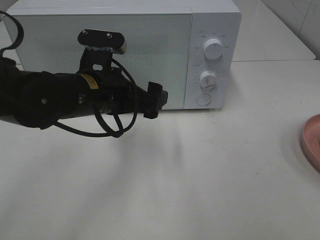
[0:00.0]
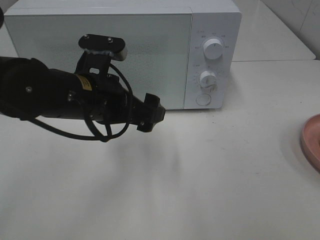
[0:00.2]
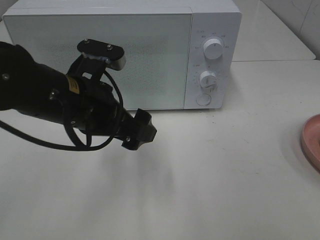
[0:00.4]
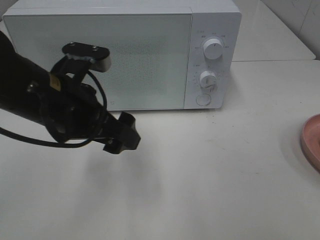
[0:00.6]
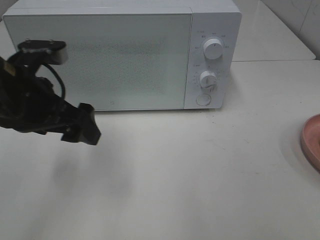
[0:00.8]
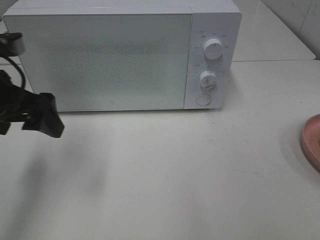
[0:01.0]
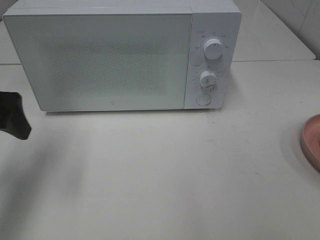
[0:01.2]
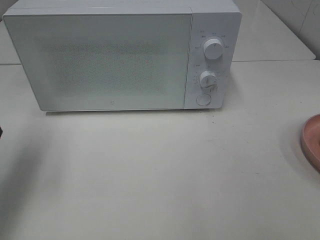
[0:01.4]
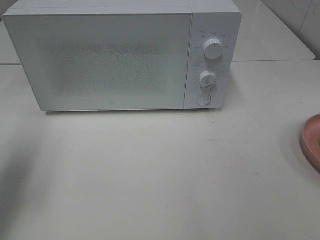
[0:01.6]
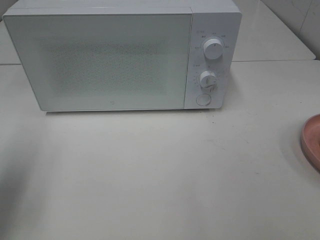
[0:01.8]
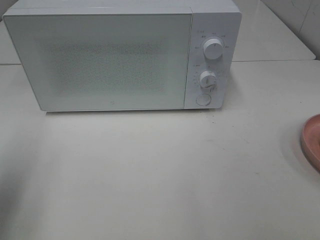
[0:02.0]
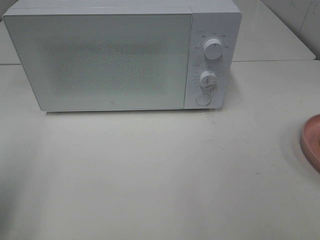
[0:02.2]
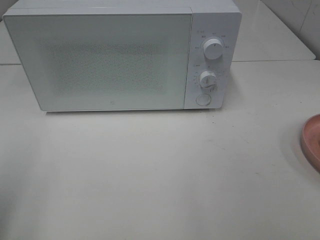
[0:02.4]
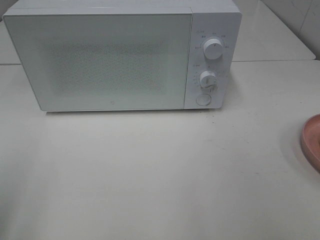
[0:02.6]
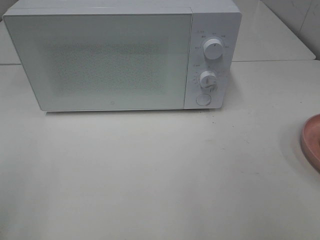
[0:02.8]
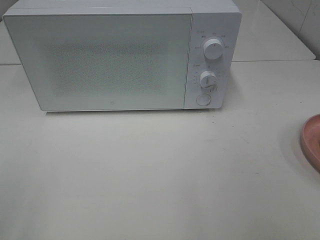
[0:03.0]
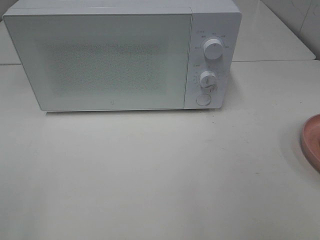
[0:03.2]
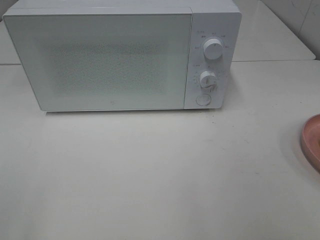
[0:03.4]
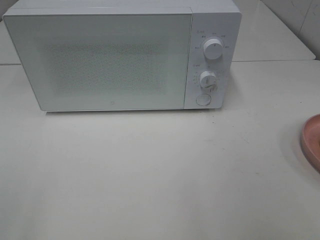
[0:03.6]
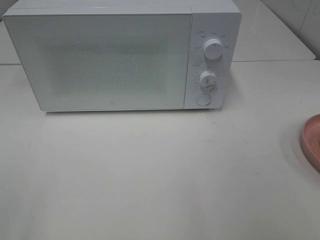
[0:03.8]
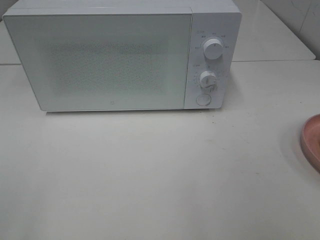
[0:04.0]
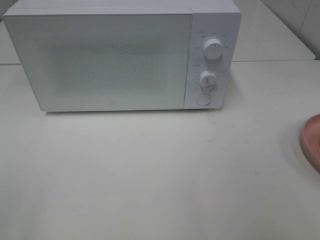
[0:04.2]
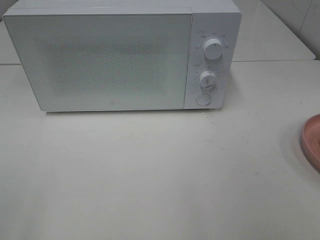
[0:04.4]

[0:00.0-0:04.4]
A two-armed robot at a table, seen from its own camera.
Task of the whole recording: Heat Sandwich.
0:00.0 to 0:01.4: The left gripper goes roughly 20 cm to the left.
0:01.4 to 0:03.0: The left gripper goes approximately 20 cm backward.

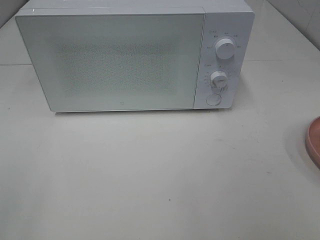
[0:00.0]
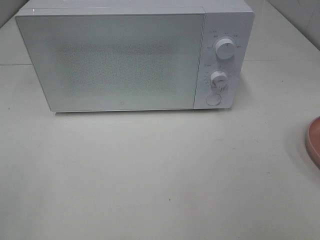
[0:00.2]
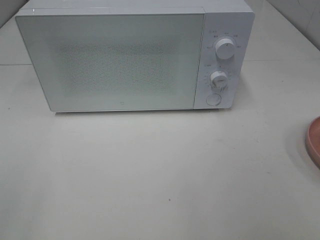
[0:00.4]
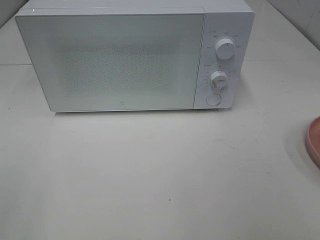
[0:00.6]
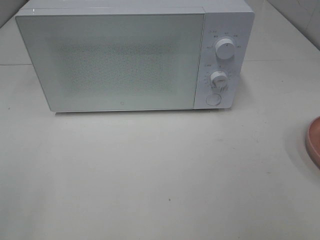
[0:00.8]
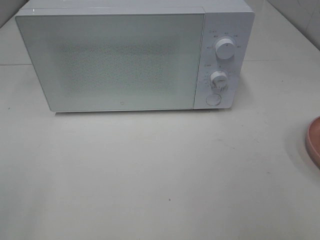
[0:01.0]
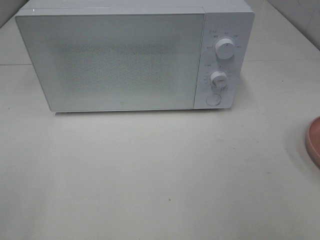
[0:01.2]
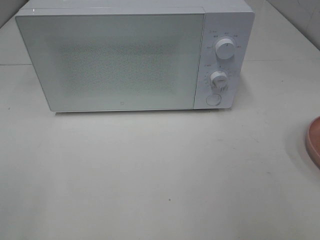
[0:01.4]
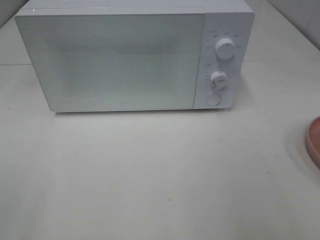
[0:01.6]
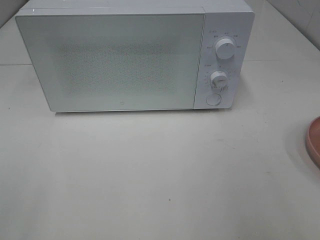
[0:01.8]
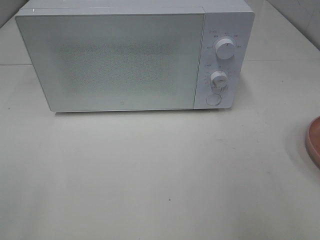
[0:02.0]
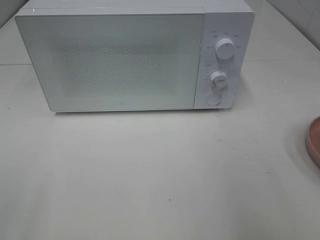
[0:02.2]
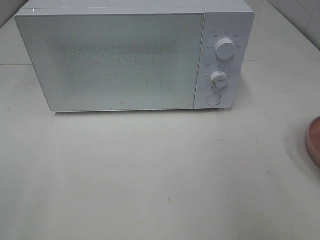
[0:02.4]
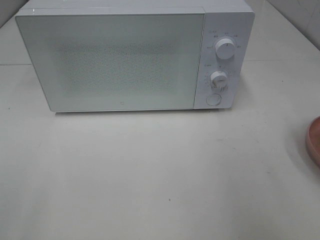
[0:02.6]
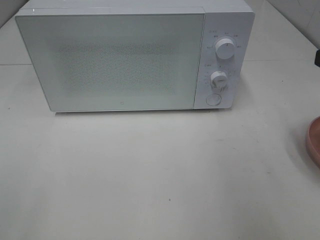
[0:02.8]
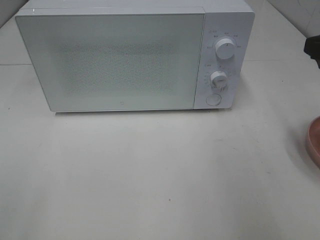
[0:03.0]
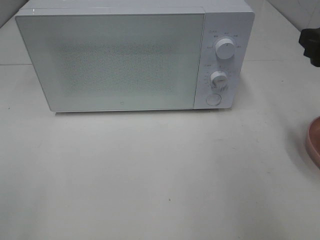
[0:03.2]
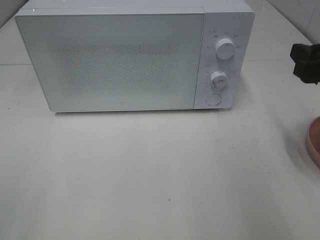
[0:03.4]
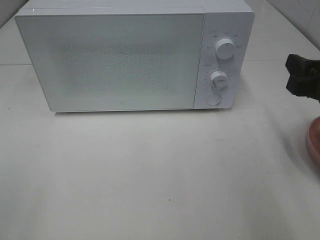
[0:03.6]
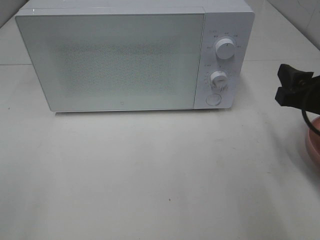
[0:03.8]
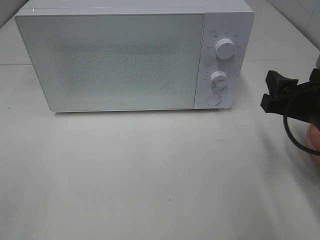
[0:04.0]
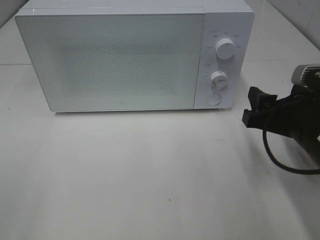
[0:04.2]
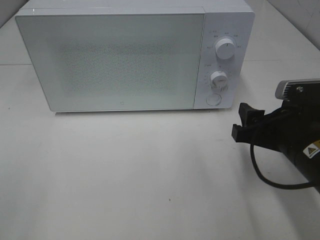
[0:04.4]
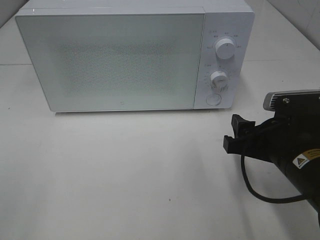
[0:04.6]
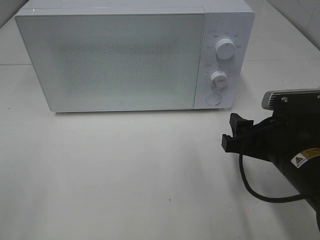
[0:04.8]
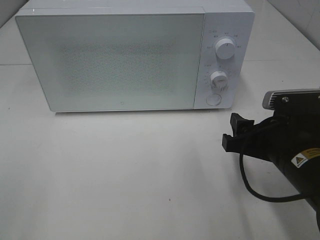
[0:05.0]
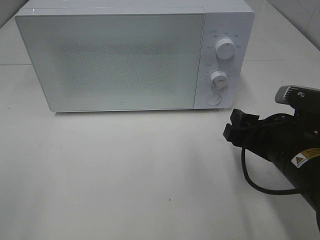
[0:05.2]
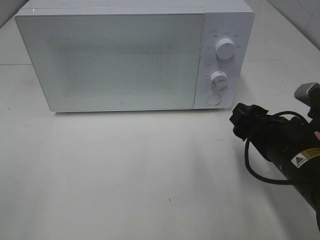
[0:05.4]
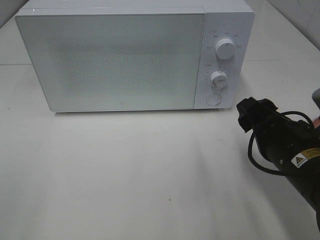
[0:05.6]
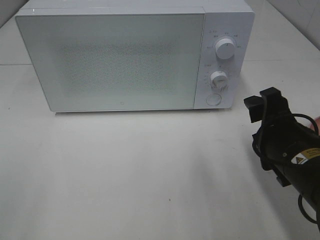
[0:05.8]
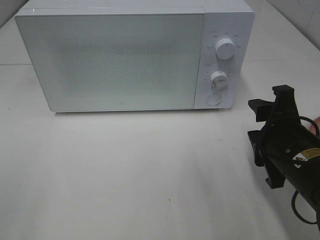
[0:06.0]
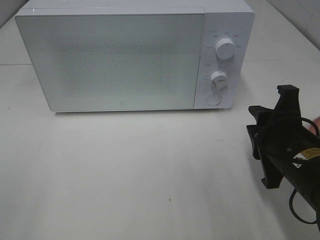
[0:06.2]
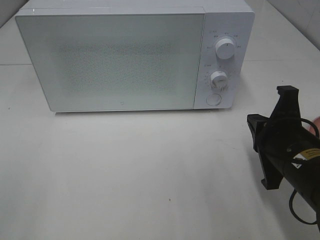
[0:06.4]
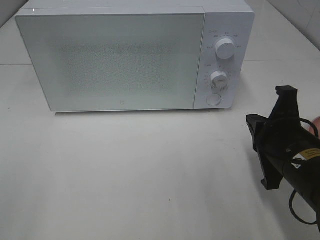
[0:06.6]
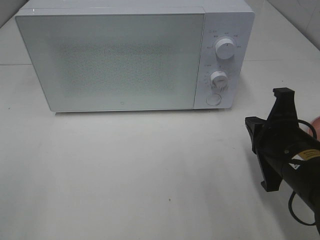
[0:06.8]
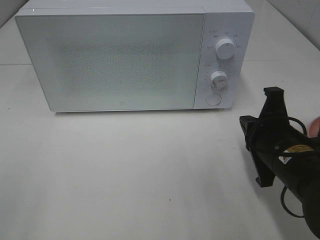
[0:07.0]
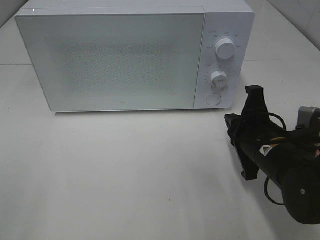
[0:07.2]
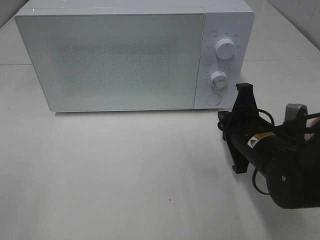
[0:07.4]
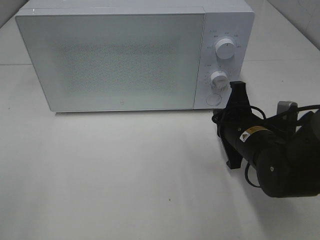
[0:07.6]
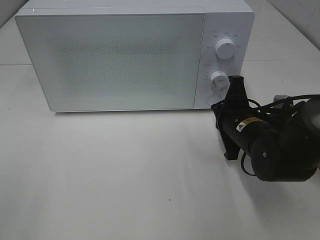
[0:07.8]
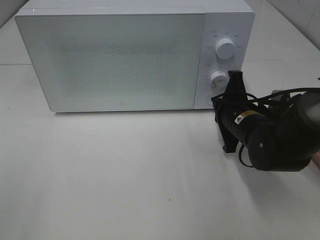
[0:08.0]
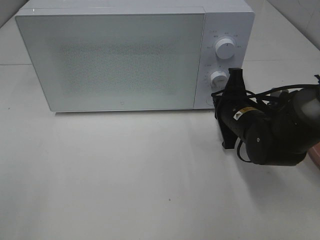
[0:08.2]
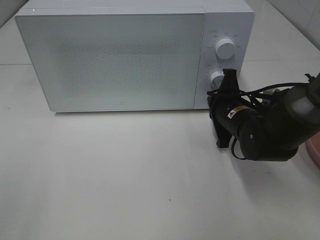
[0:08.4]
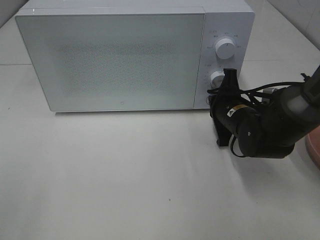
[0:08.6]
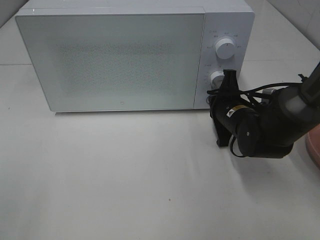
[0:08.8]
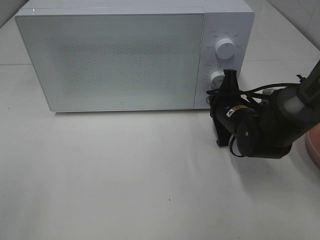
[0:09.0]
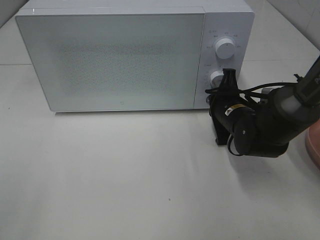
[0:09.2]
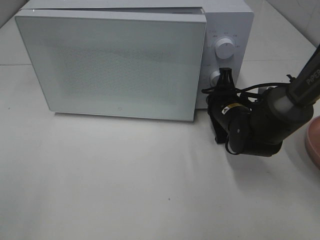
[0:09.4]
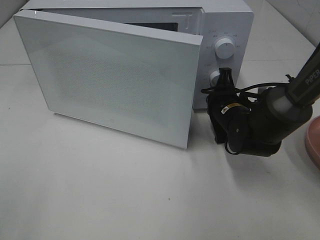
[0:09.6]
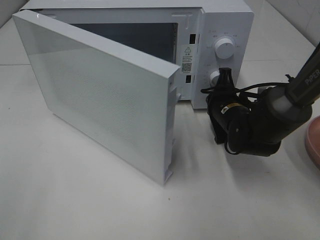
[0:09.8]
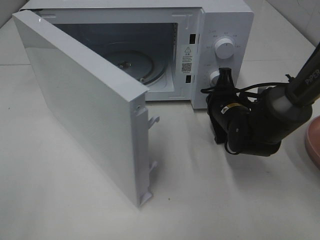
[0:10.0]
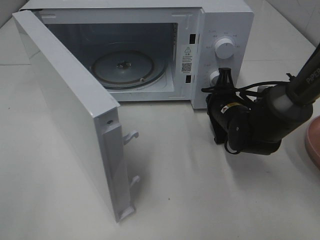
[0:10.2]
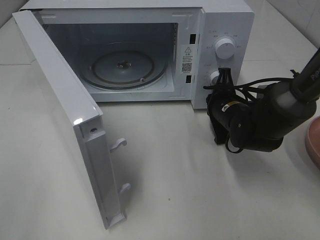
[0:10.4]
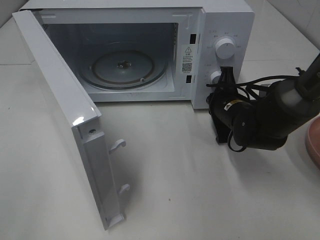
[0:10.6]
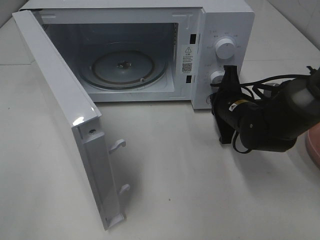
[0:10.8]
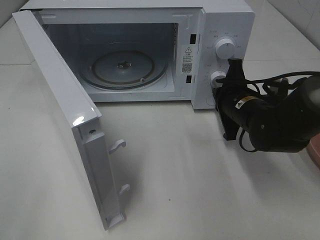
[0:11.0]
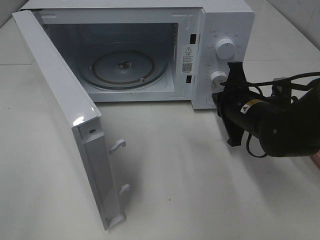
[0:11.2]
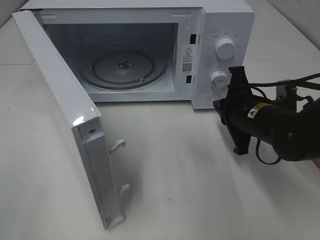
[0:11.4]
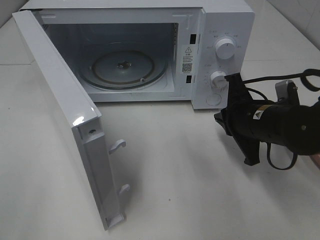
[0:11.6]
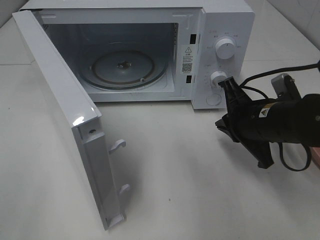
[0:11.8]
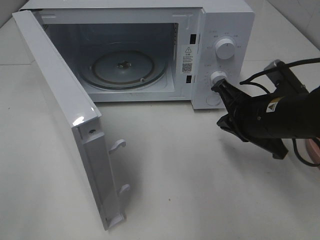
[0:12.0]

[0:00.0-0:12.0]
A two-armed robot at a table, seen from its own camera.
Task of the whole recording: Heat Sandwich.
Step, 0:00.0 to 0:11.2: Right hand: press the switch.
0:01.6 to 0:03.0: The right gripper heads forward, covering approximately 15 cm.
0:03.0 to 0:04.4: The right gripper shifts approximately 15 cm downward and to the left.
0:06.0 to 0:07.6: The right gripper heads forward, covering approximately 10 cm, and closes its fingers.
0:07.6 to 0:09.0: The right gripper is displaced forward by approximately 10 cm.
0:10.4 to 0:12.0: The right gripper moves backward and upward, some 15 cm.

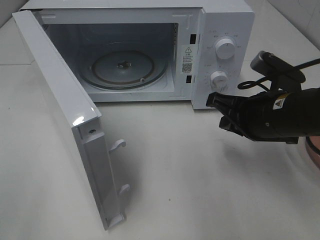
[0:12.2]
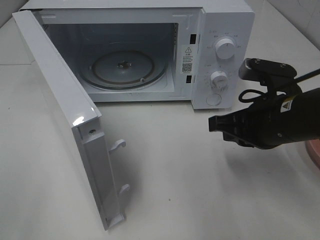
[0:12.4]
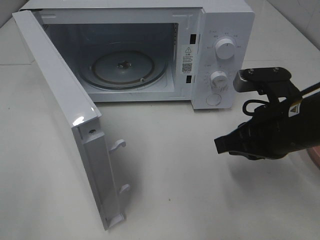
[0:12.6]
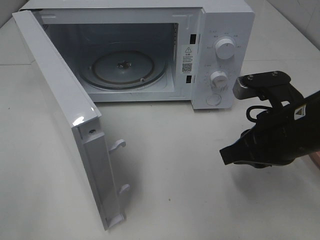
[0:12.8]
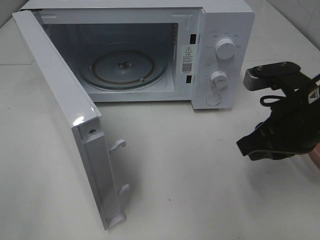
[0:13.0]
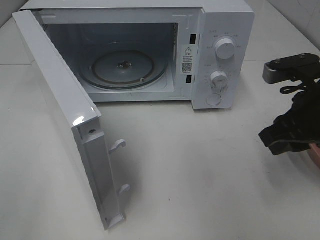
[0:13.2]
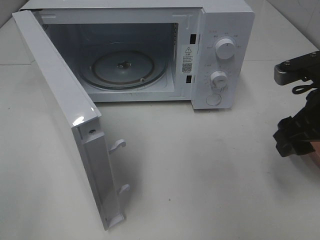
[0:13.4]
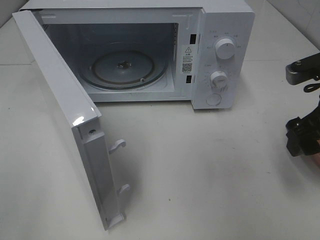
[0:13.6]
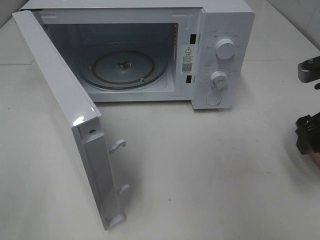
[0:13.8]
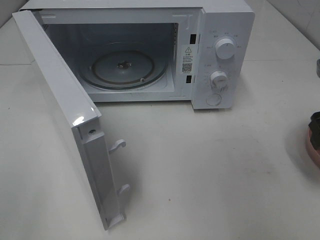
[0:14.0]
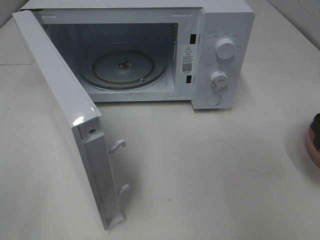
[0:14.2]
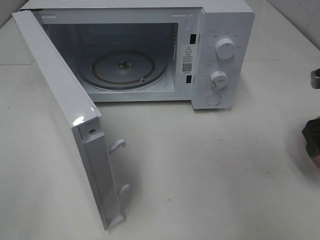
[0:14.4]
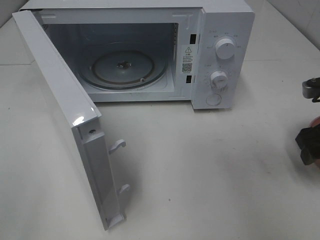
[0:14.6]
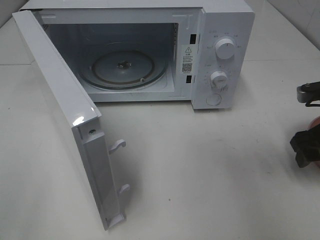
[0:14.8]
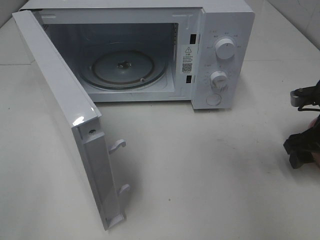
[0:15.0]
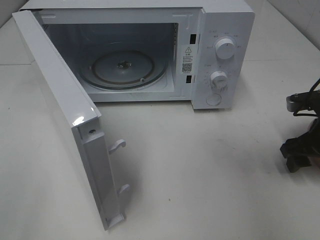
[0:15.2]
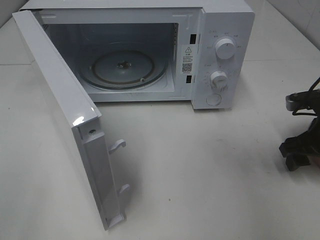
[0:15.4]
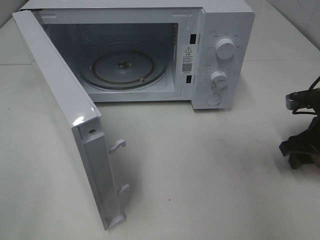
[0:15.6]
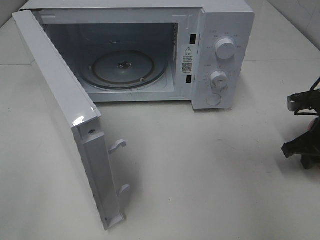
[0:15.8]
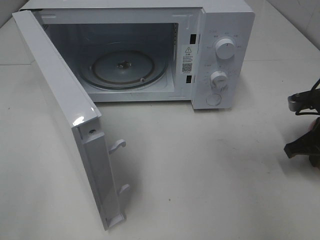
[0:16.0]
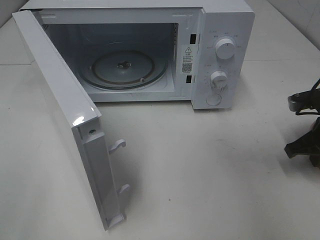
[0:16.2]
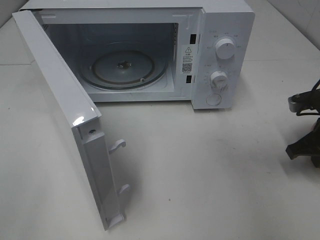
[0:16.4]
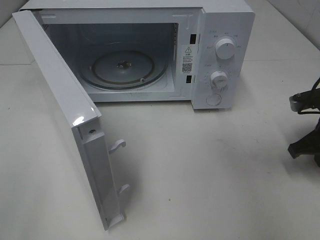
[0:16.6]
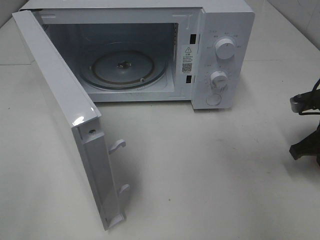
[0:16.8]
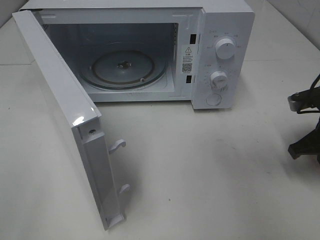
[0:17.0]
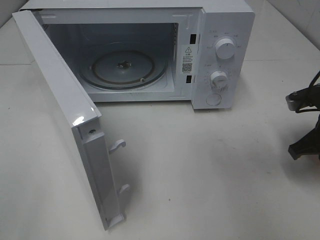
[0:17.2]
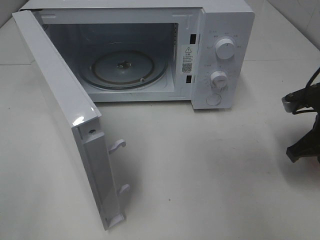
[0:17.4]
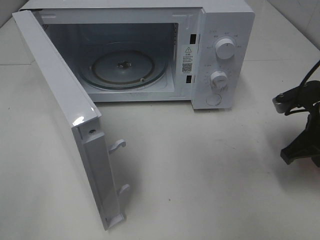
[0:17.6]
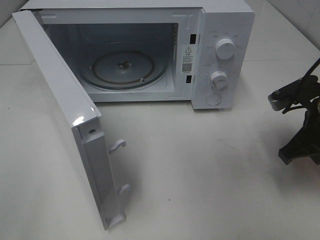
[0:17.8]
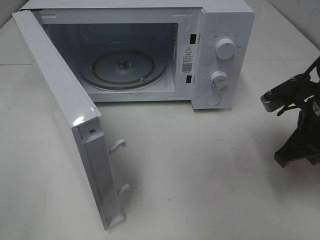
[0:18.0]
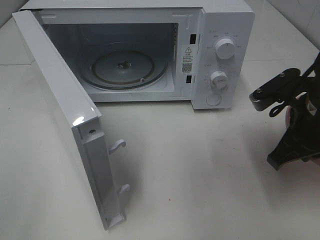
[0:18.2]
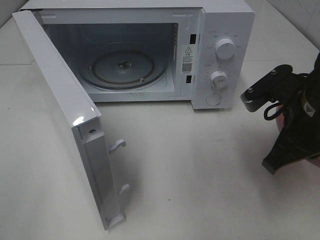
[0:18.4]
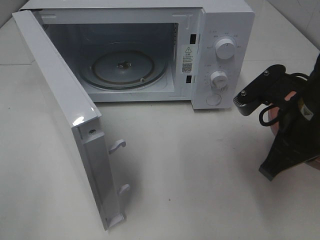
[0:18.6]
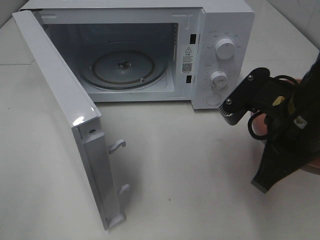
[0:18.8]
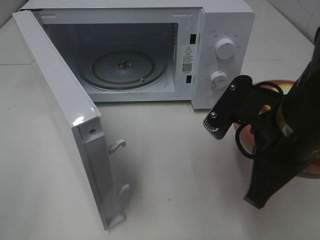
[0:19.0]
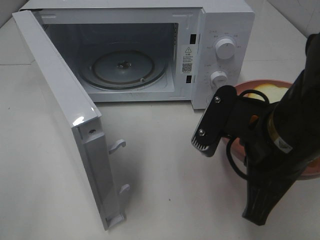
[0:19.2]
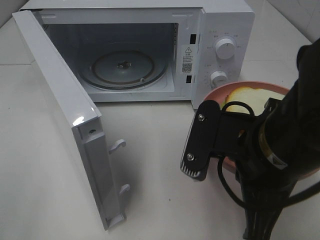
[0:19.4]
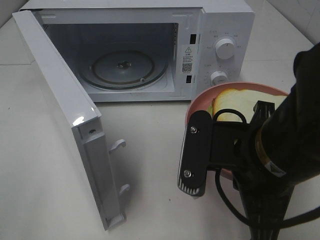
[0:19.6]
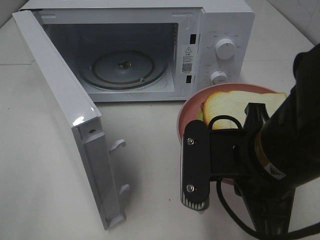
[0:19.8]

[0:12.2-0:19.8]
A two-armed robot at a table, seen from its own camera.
Task of the whole recording: Heat Sandwich.
Step, 0:12.2 to 0:16.4: Right hand: grab the plate with the sandwich.
0:12.2 to 0:13.8: The right gripper is displaced to the right by some 10 cm, and opens up.
0:13.8 to 0:15.2: The right gripper heads downward, covering approximately 10 cm.
0:15.2 to 0:16.8: The right gripper closes its fingers.
0:16.8 to 0:18.2: The right gripper heads to the left and upward, covering some 10 cm.
0:18.2 to 0:19.8: The right gripper heads to the left and backward, covering approximately 15 cm.
